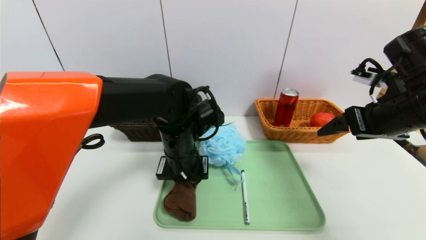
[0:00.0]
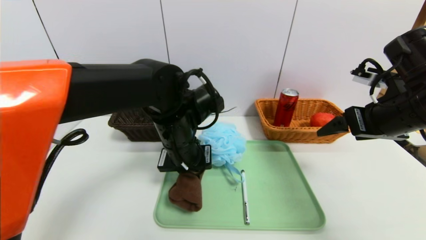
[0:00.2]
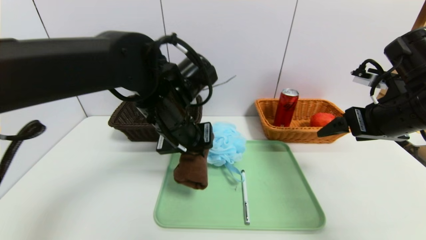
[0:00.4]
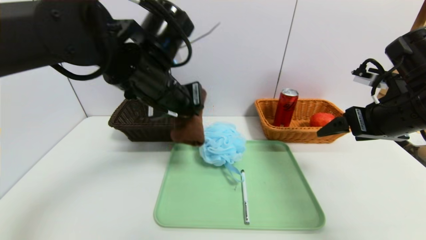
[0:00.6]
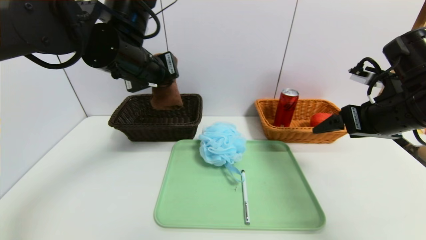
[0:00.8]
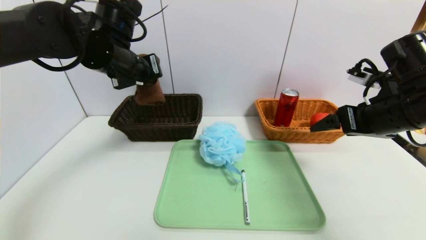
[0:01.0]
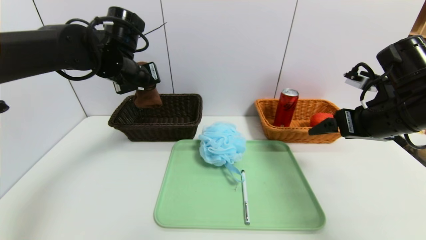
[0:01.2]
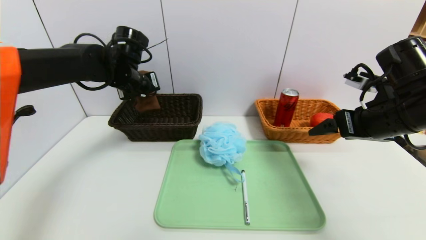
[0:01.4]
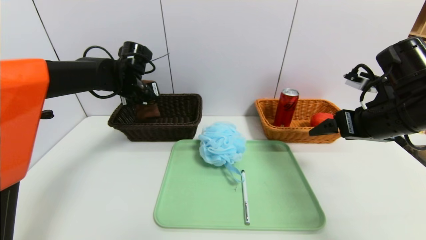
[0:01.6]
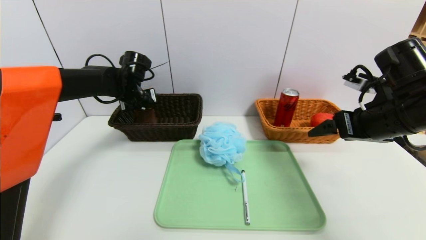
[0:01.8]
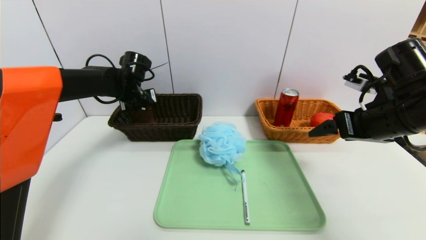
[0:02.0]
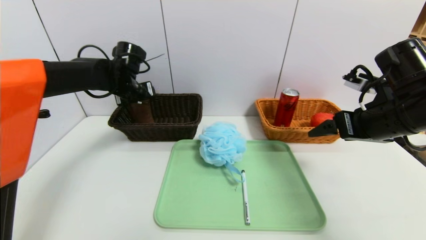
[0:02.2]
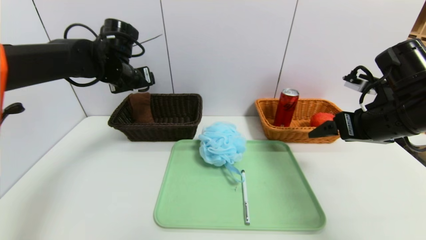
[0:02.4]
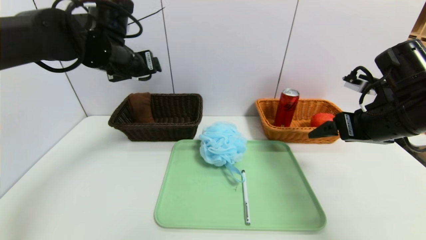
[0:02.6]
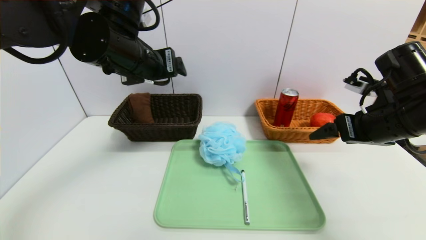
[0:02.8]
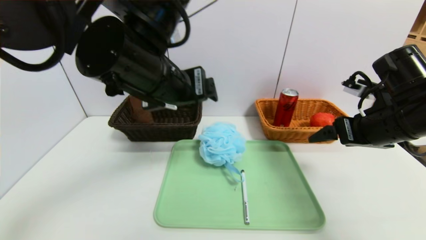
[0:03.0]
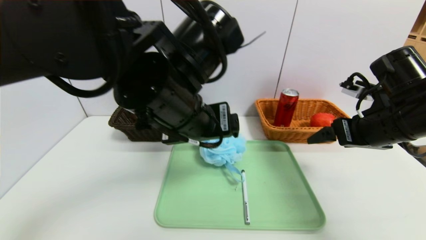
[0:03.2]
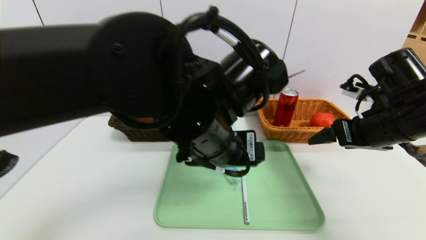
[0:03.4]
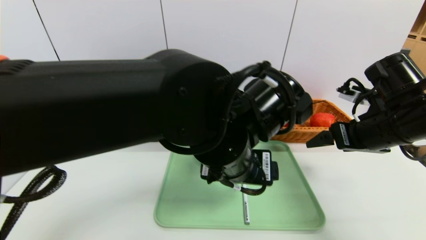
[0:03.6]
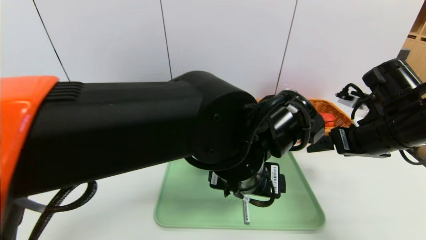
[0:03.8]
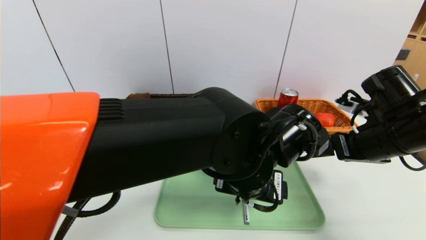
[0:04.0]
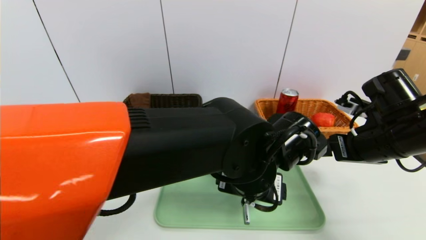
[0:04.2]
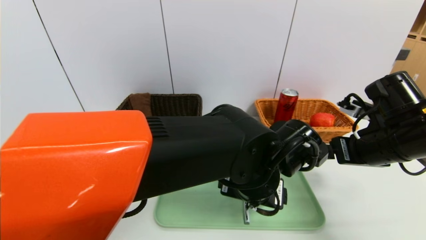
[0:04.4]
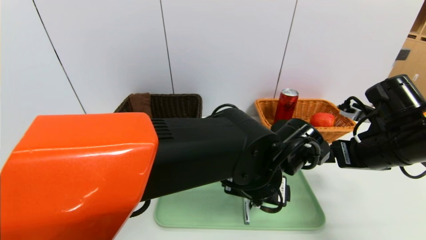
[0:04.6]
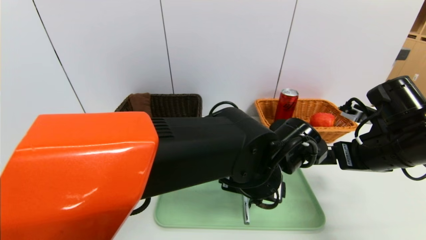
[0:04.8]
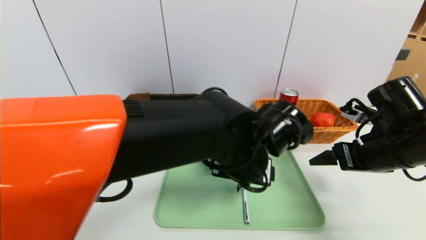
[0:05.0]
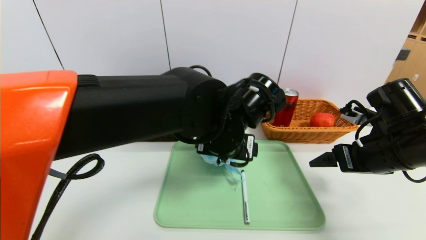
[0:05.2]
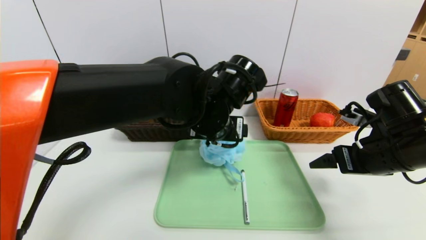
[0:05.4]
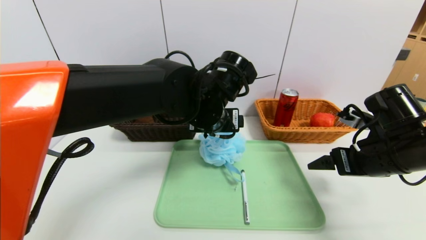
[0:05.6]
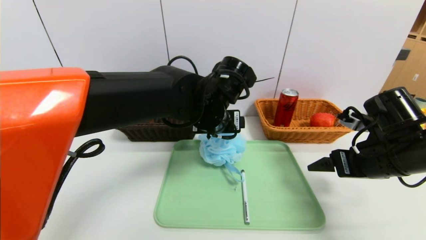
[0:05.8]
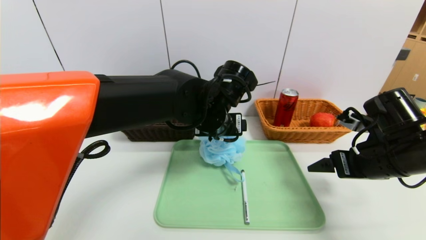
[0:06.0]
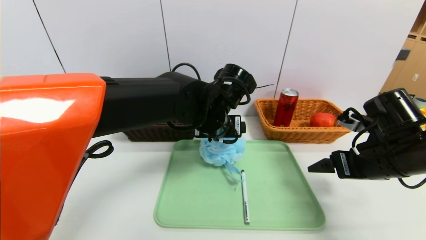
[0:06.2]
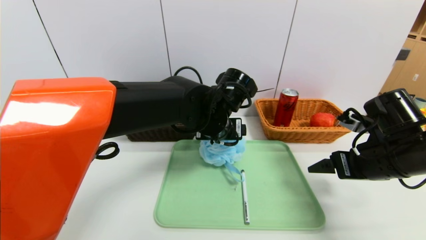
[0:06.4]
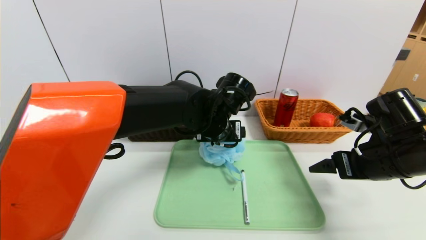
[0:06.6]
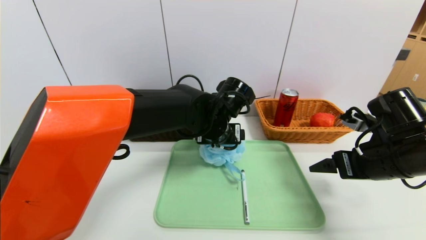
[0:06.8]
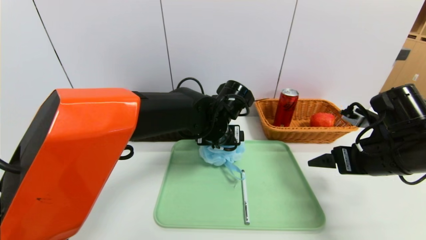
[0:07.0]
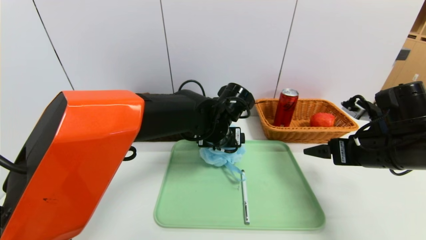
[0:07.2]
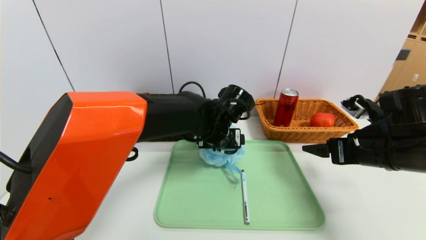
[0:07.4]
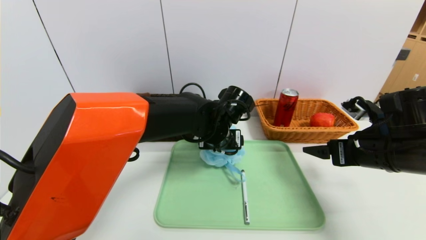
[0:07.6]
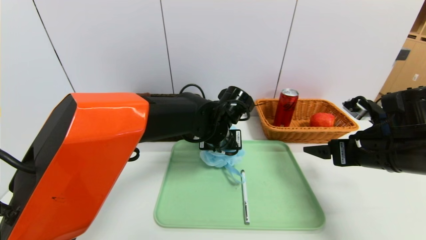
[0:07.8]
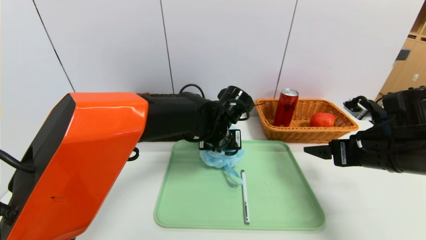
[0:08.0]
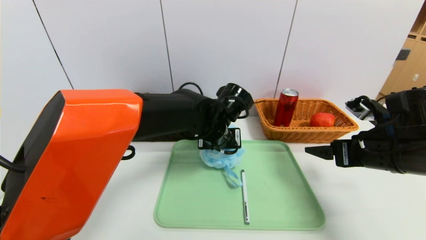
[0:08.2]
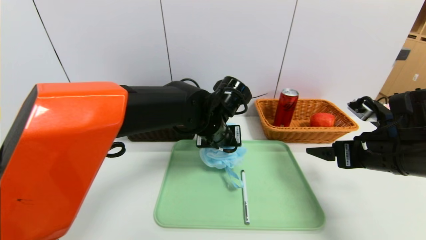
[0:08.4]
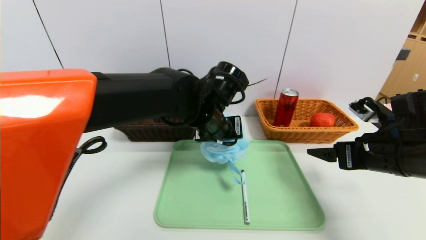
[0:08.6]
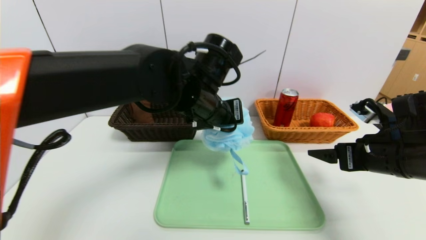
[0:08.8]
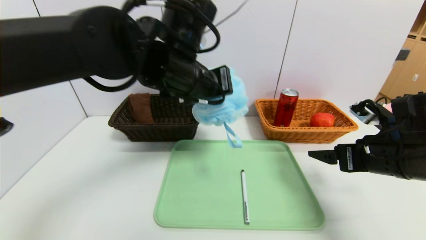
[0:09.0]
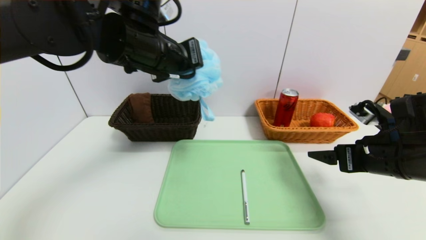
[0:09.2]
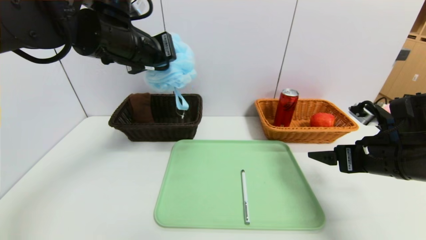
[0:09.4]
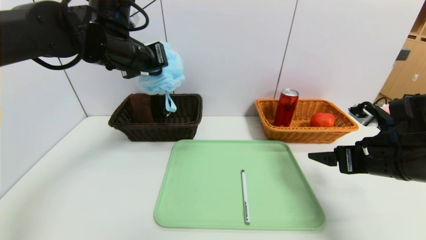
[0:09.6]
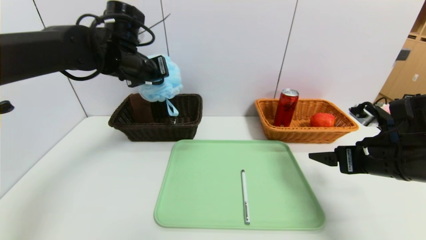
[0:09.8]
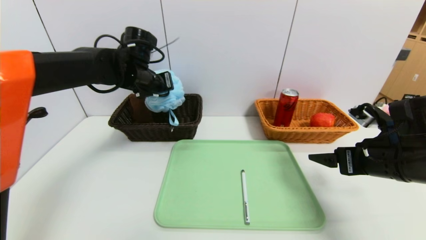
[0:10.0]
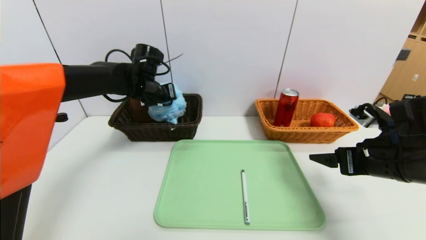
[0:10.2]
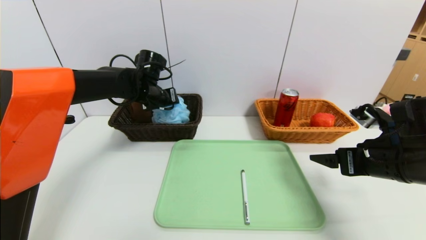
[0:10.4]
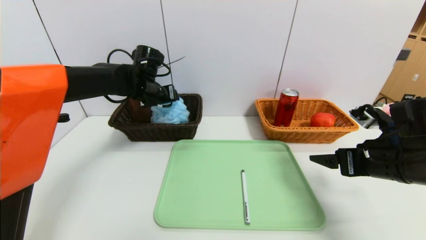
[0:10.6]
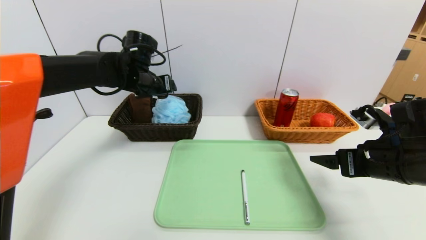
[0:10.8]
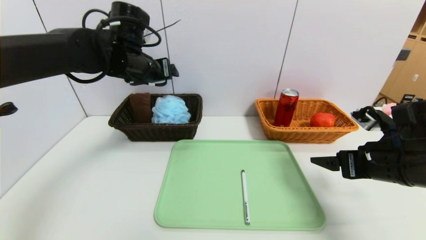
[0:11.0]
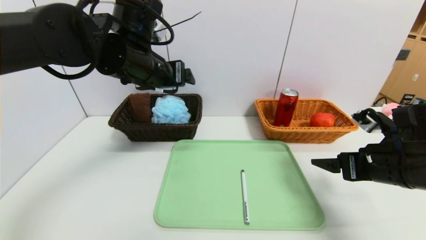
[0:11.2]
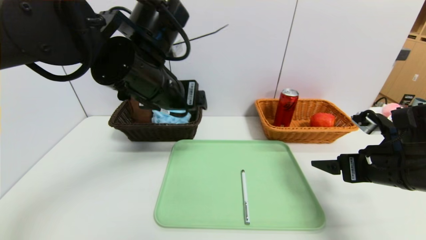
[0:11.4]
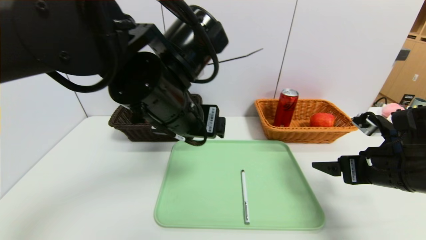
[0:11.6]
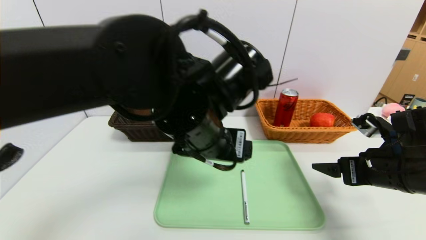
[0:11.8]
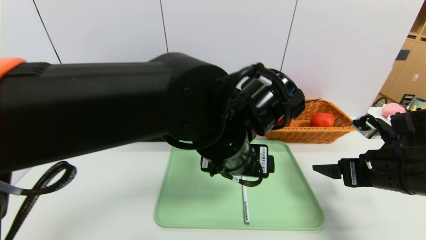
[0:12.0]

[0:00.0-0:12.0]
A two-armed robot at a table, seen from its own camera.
Task of the whole recording: place the food in the right basket with the right gripper, and place the non food items in the left basket with the left gripper.
Step, 0:00.0 to 0:02.4: Grasp the brown towel and put it in the left basket.
Step, 0:02.6 to 0:11.2: Grasp the bath ball and put it in the left basket.
0:00.0 to 0:01.6: The left gripper heads forward and to the left, covering approximately 20 cm.
0:01.6 to 0:03.0: The left gripper shifts some 25 cm backward, to the right and upward, and opens up.
0:03.0 to 0:04.4: The left gripper shifts roughly 20 cm downward and to the right.
0:04.4 to 0:06.0: The left gripper heads forward and to the left, covering some 10 cm.
0:06.0 to 0:07.6: The left gripper moves downward, approximately 5 cm.
0:07.6 to 0:09.0: The left gripper heads upward and to the left, covering about 15 cm, and closes up.
0:09.0 to 0:10.4: The left gripper is displaced forward, downward and to the left by about 20 cm, and opens its fingers.
0:10.4 to 0:12.0: The left gripper is displaced backward and to the right by some 30 cm.

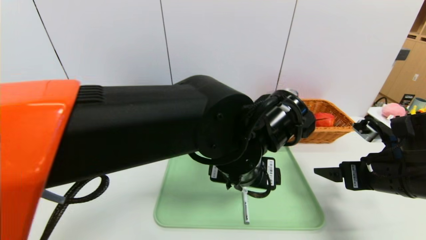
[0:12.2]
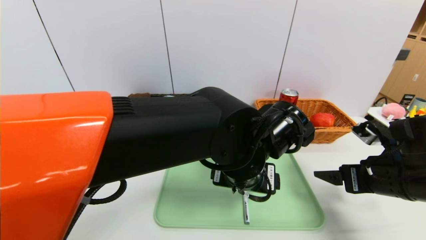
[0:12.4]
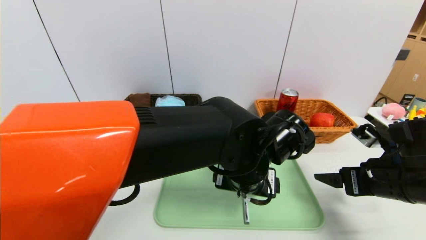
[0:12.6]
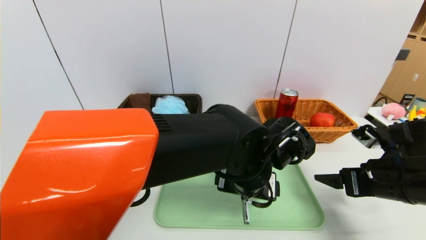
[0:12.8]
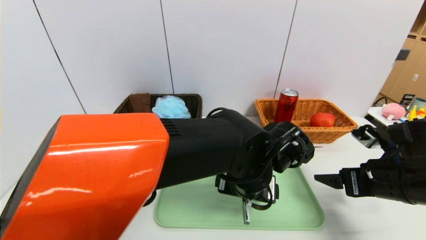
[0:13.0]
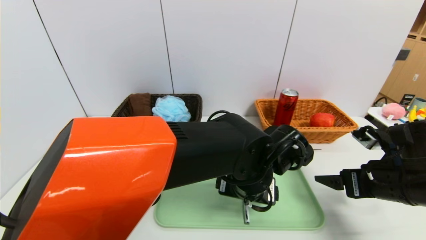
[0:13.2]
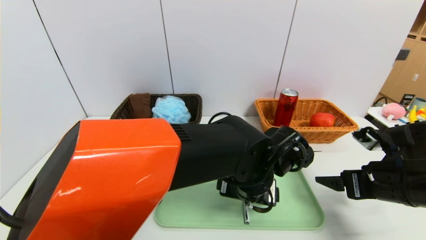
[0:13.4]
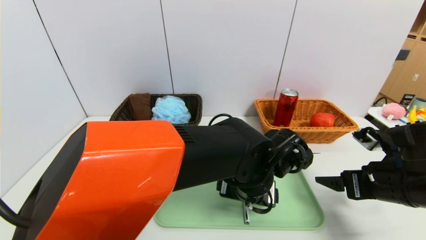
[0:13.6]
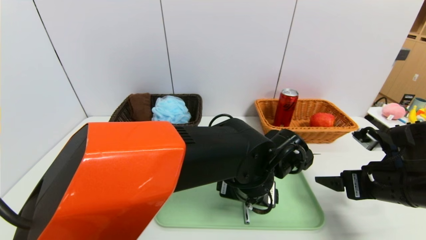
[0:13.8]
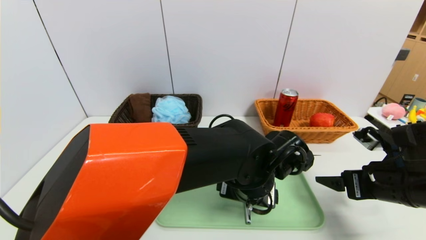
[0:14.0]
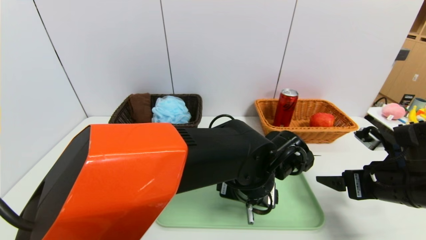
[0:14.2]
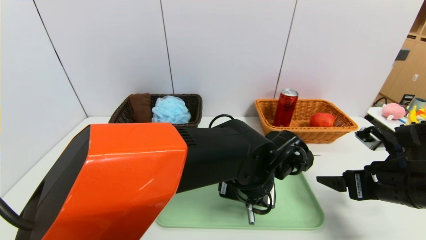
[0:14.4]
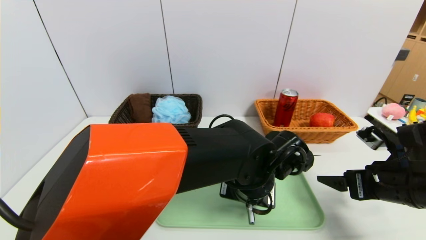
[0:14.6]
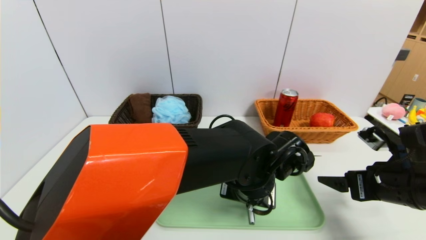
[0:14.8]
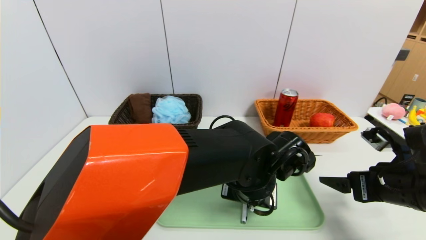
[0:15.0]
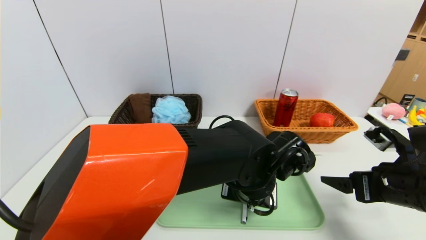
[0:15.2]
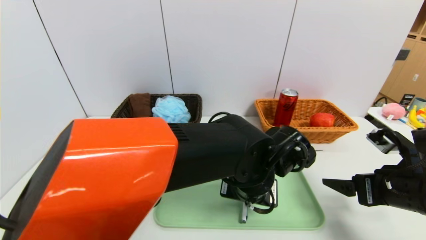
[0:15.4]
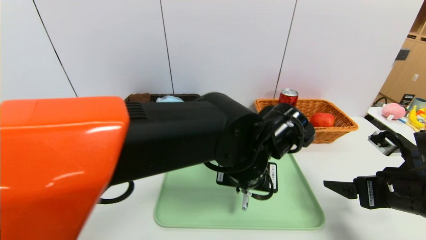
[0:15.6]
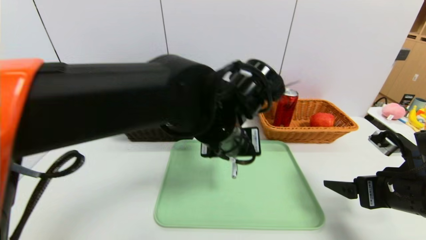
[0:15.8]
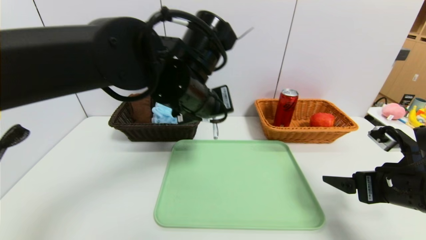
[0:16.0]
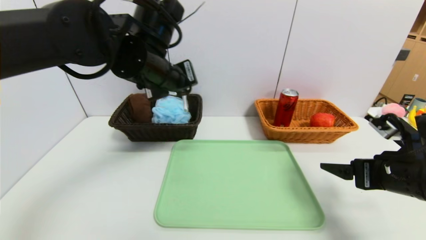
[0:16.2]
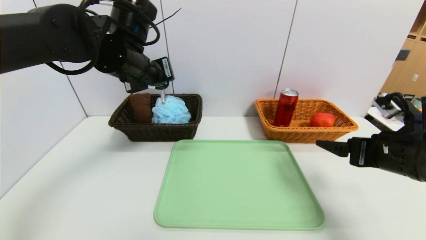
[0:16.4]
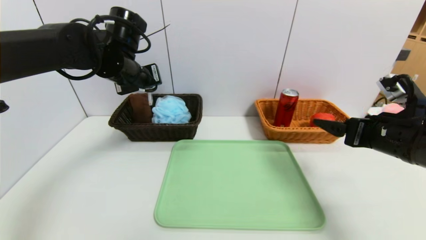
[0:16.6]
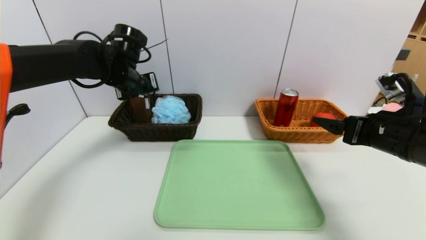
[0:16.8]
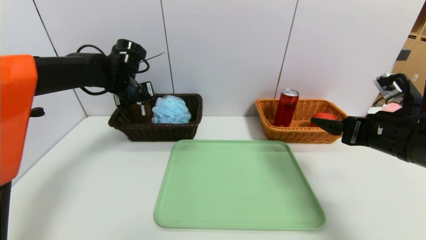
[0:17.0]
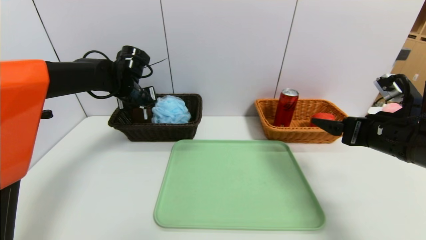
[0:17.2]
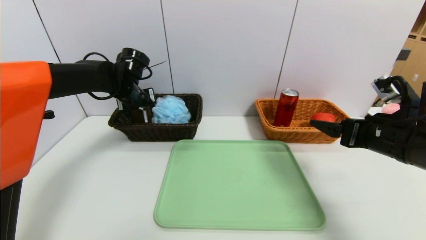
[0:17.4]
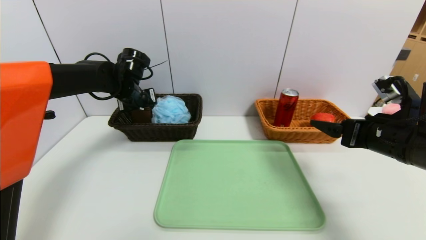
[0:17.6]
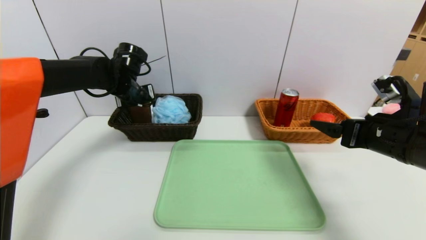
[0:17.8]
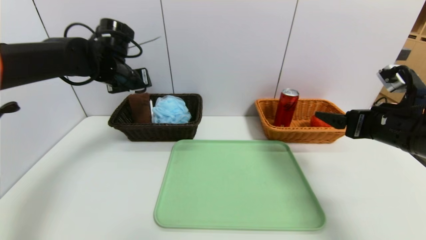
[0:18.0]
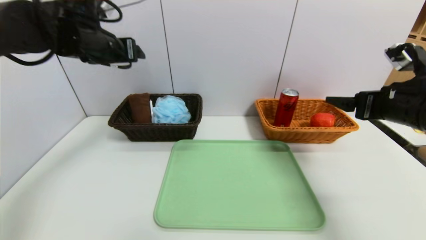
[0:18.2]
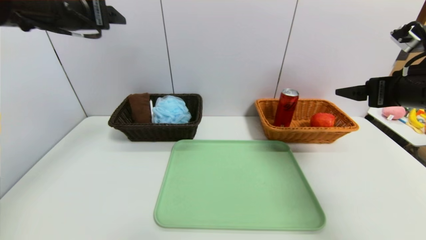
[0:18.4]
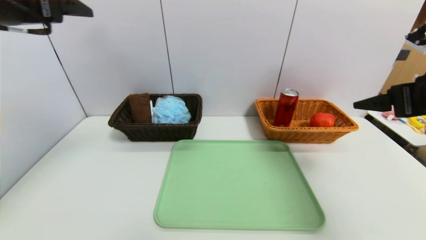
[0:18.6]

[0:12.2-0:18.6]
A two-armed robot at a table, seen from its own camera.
Task of the whole recording: place the food in the right basket with the right gripper, and place the non food items in the left basket with the left gripper.
Step, 0:12.2 to 0:17.8: Grasp the ballpoint pen and put it in the left basket.
0:12.2 to 0:13.8: The left gripper is displaced downward by approximately 5 cm.
0:13.8 to 0:15.4: The left gripper closes its fingers.
0:15.4 to 0:17.0: The right gripper moves upward, approximately 5 cm; the left gripper heads to the left and forward, covering some 35 cm.
0:17.0 to 0:18.6: The right gripper goes approximately 10 cm upward. Meanwhile the left gripper goes some 30 cm backward and upward, and opens.
